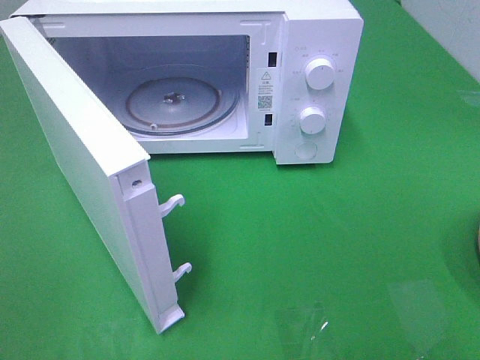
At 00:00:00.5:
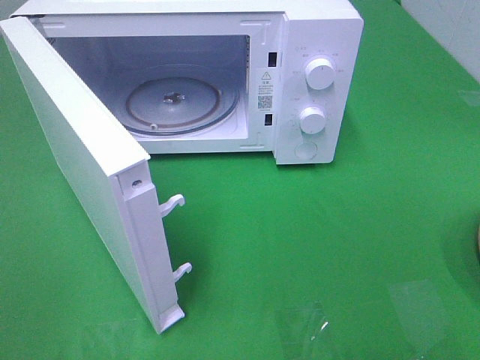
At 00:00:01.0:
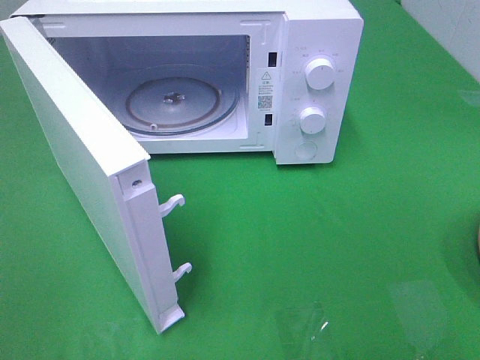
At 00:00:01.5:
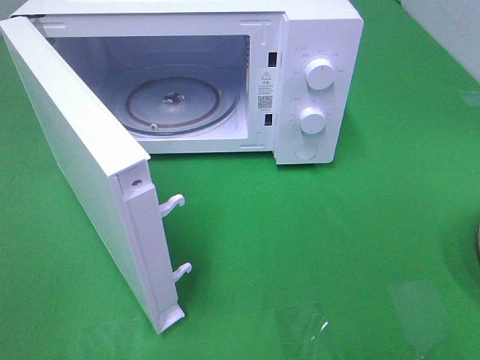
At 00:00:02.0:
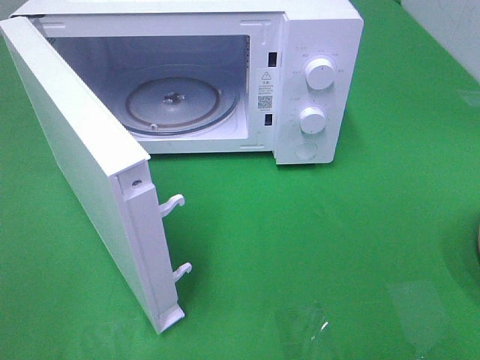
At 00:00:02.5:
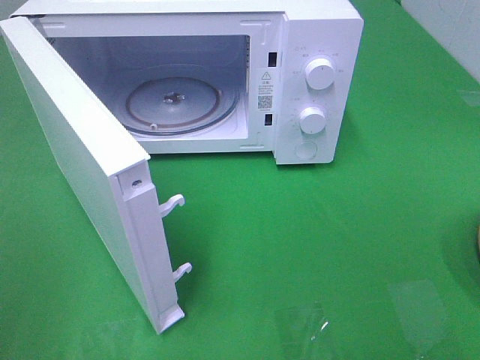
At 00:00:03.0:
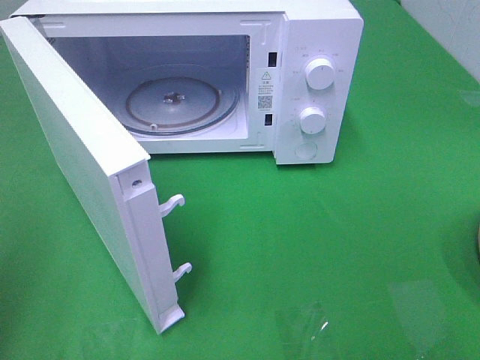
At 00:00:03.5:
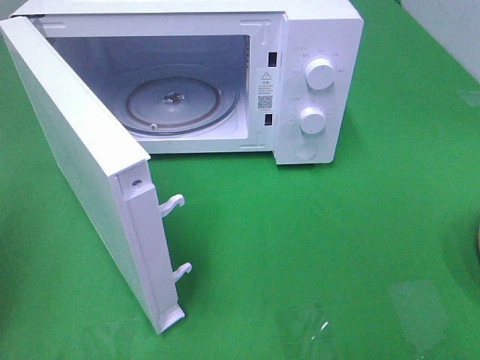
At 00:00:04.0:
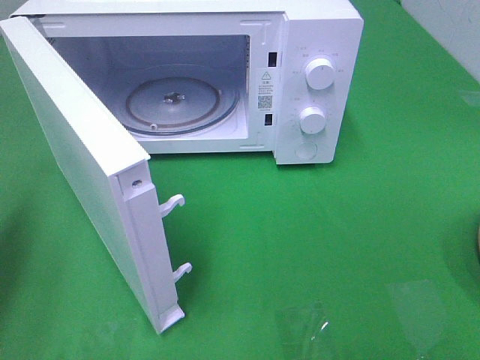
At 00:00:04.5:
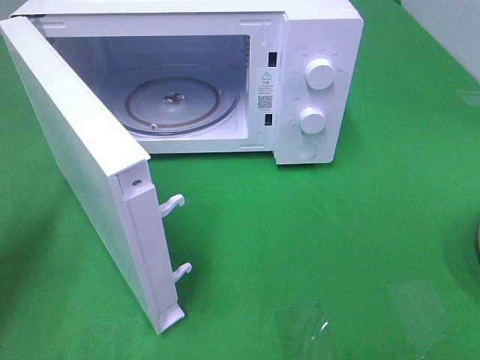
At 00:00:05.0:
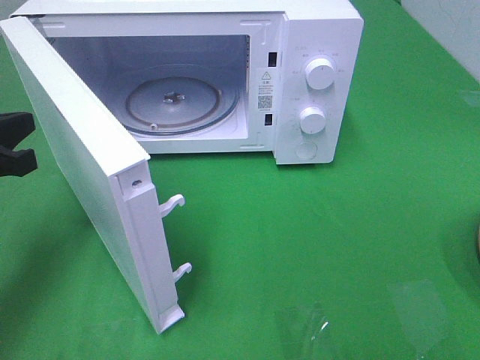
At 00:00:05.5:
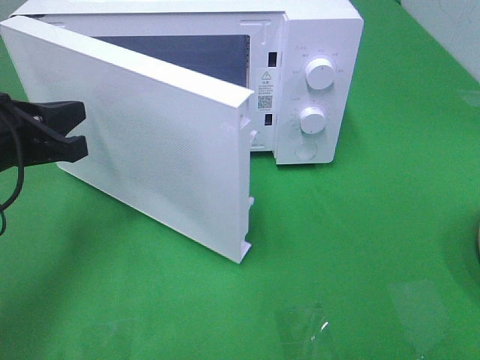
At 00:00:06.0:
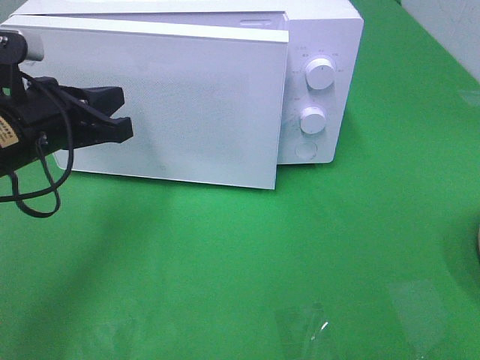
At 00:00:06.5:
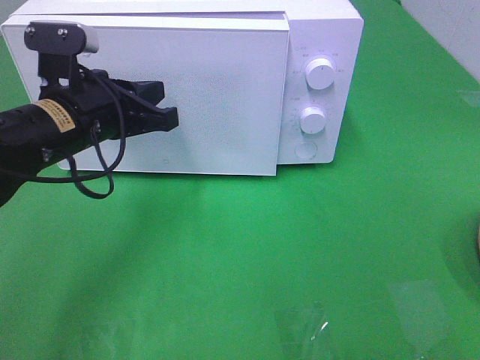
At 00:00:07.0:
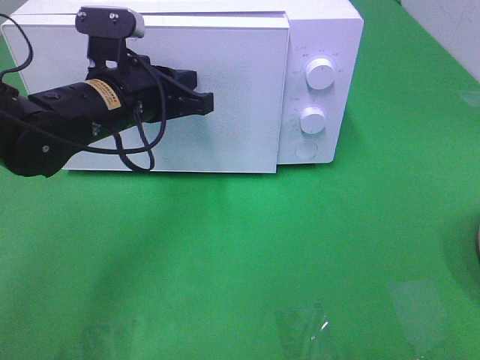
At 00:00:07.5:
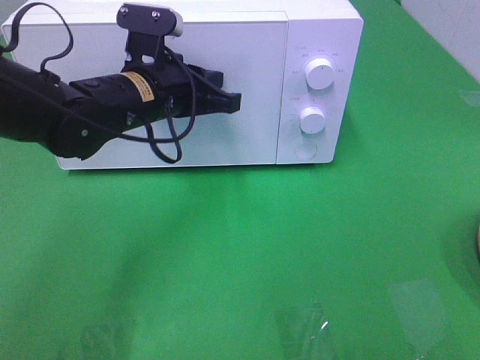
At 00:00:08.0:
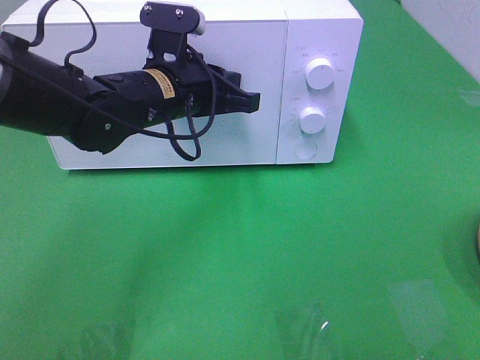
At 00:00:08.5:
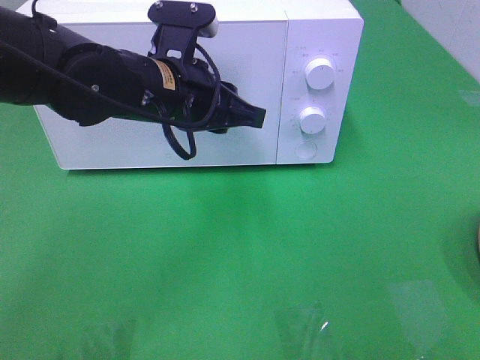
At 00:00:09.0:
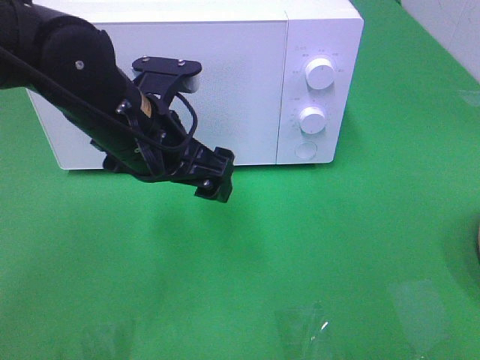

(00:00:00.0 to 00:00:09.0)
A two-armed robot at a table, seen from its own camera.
Task of the whole recording: Heat the burger.
Step, 00:00:00.0 - 00:00:08.0: Left hand: close the microwave door.
00:00:00.0 - 00:00:02.0: Both grippers stay about where they are.
00:00:02.0 - 00:00:04.5: The left gripper travels forward and downward by some 25 cm, and closes.
00:00:04.5 - 00:00:07.0: The left gripper travels to the right and forward by some 20 cm.
00:00:07.0 - 00:00:09.0: The left gripper heads backward, covering roughly 5 cm, and opens its fingers.

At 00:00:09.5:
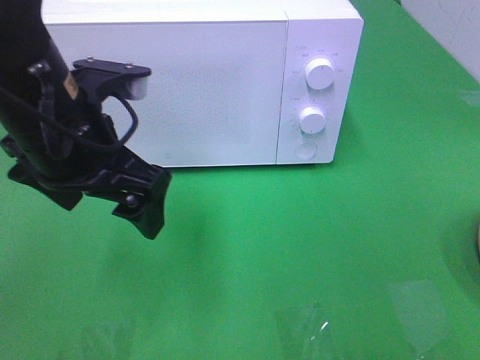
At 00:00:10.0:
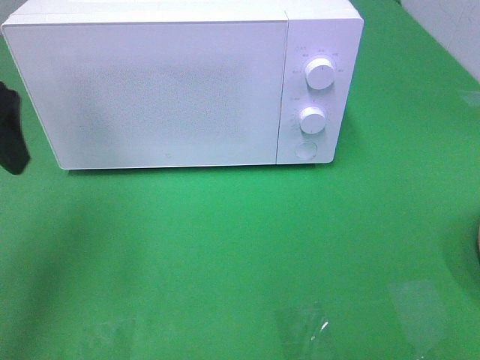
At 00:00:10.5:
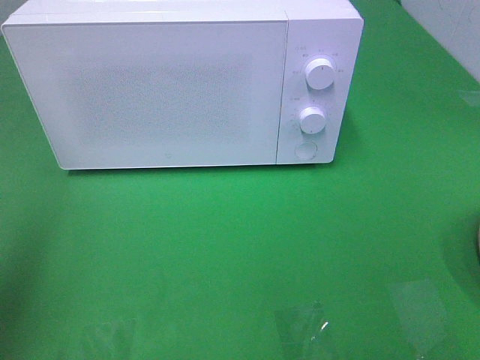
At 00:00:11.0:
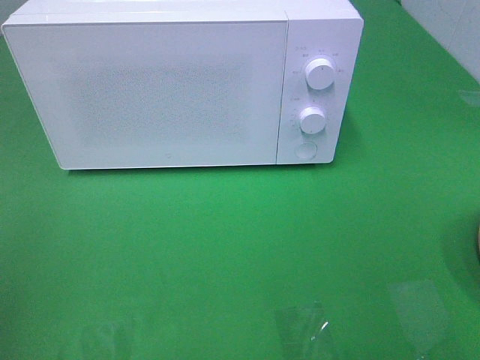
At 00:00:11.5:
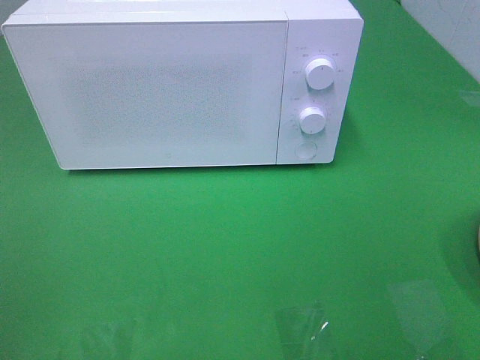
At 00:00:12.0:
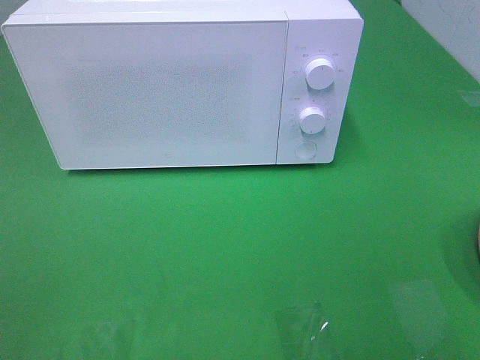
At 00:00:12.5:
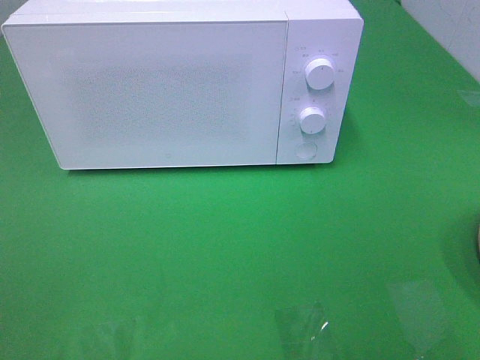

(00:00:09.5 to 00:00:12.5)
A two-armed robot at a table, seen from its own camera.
Task of the whole recording: Heat the burger.
00:00:09.5 - 00:00:11.0: The left gripper goes approximately 25 cm to the left and backward.
